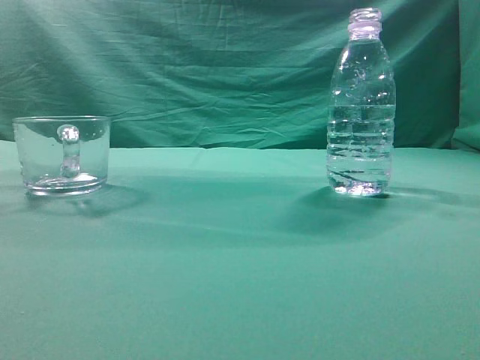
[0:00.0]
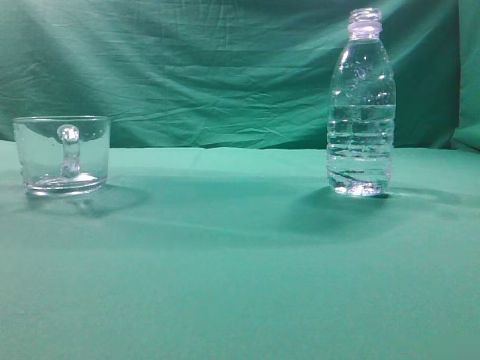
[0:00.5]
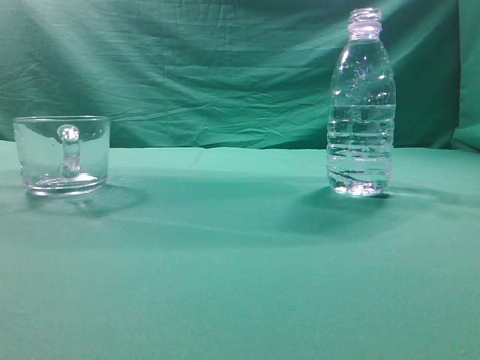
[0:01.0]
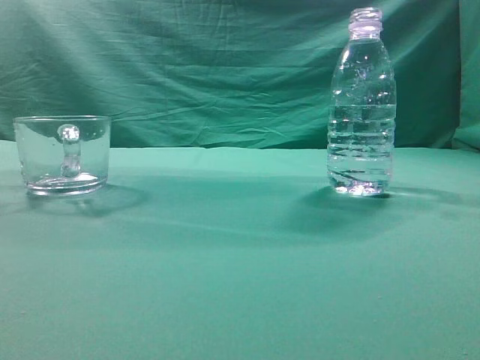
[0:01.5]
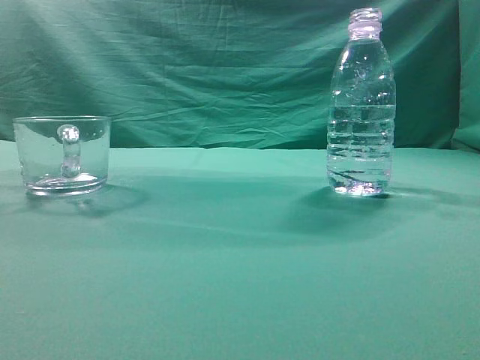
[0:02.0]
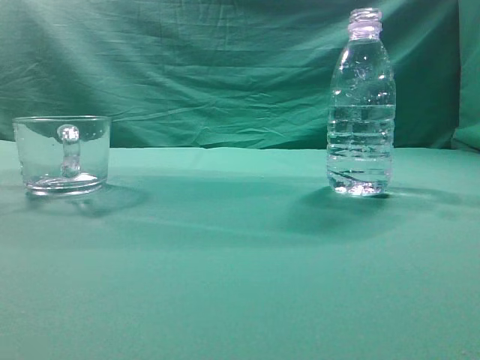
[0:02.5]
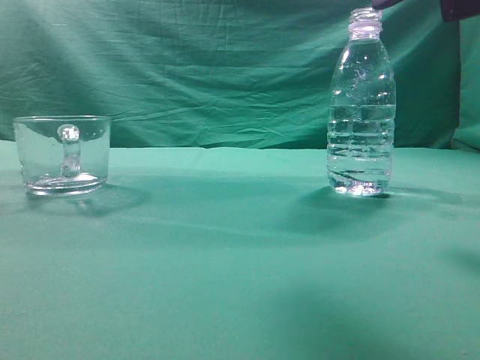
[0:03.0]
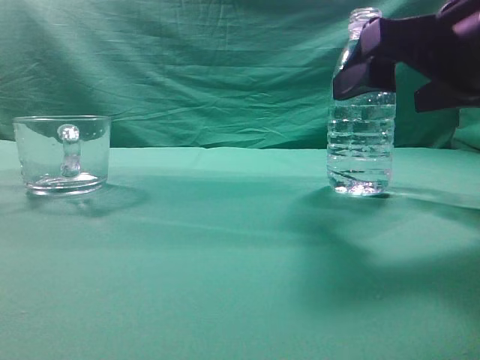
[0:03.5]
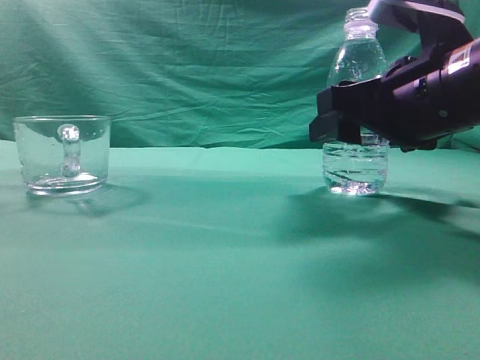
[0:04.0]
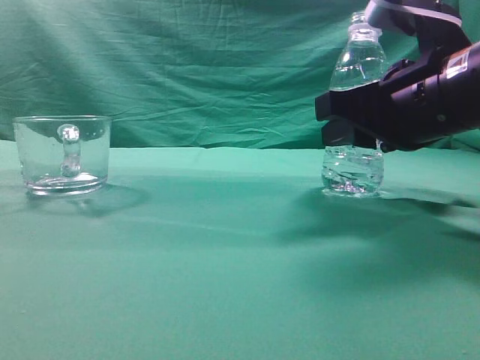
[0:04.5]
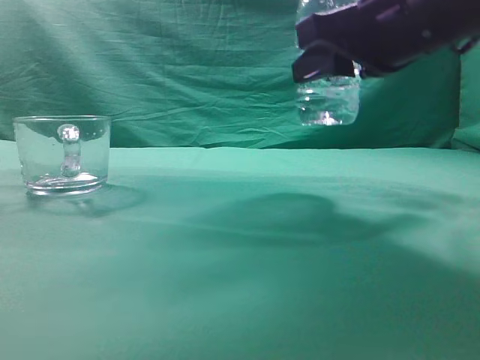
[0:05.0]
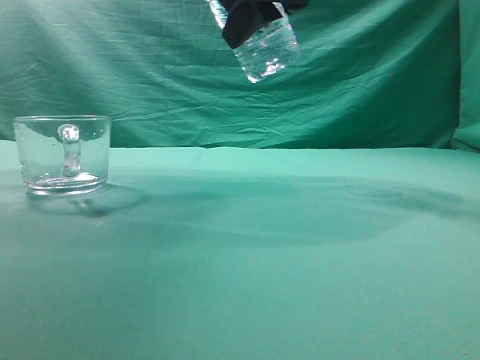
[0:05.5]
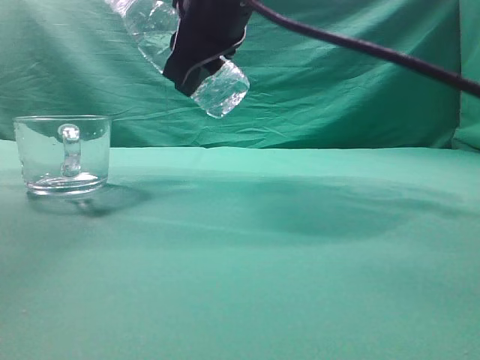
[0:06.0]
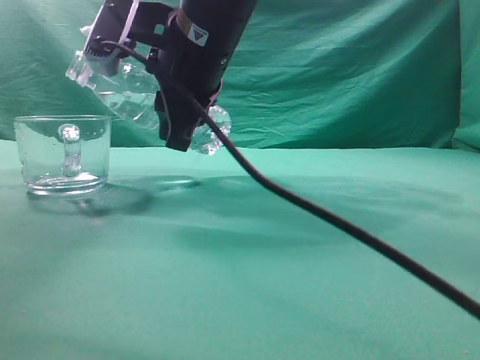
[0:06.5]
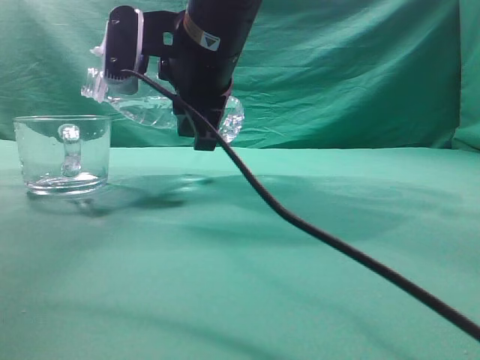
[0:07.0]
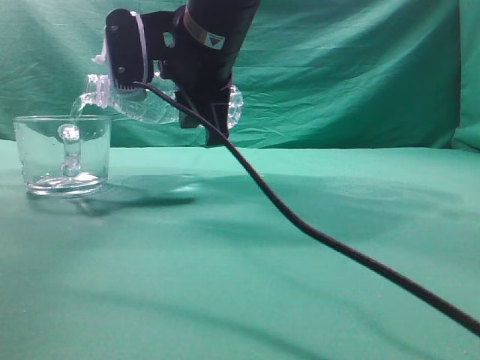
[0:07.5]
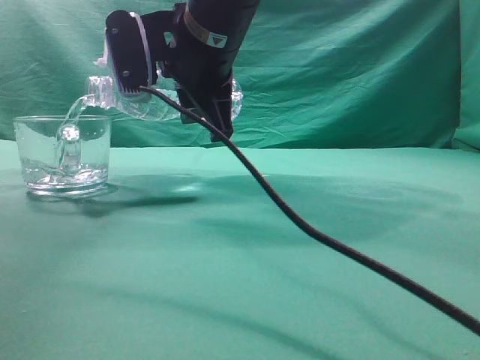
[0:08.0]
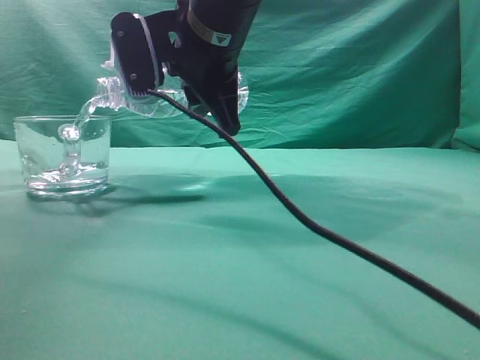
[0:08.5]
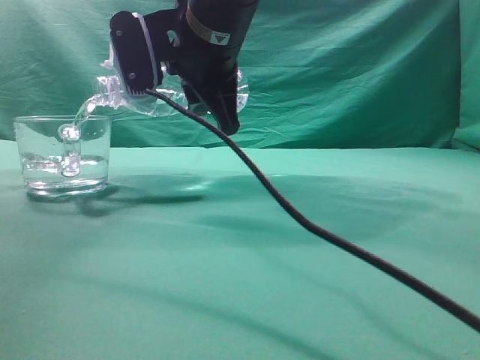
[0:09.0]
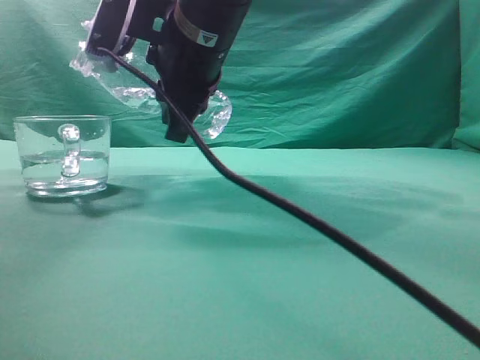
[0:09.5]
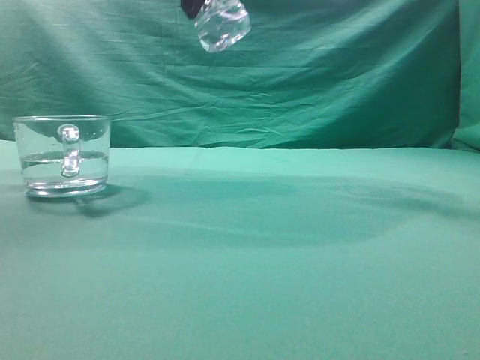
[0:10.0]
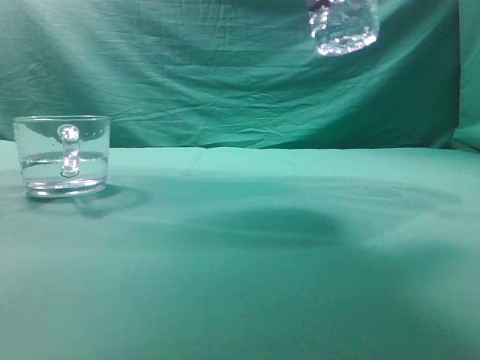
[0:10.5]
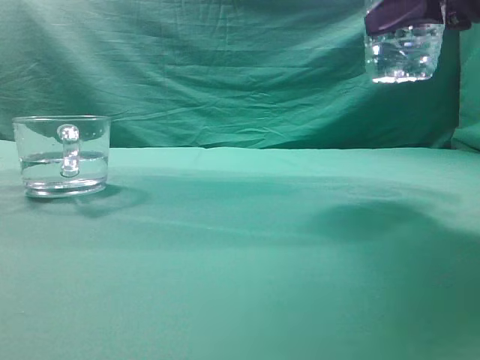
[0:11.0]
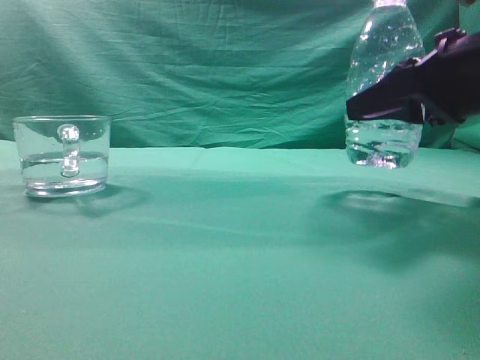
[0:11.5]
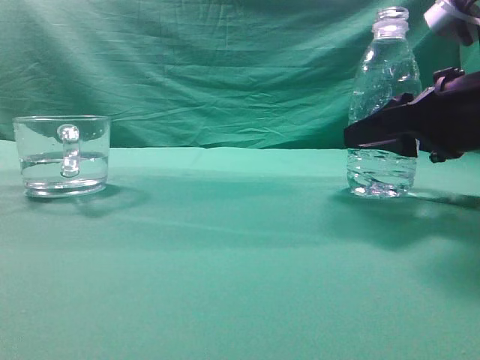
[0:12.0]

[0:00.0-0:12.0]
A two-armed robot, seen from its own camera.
Task of the whole recording: pick up the water bottle and pour the water in it into the glass.
Step, 0:00.0 to 0:04.5: Grasp the mineral water bottle.
Step, 0:05.0 to 0:09.5: Pour water into the teacup.
0:02.0 to 0:04.0: The right gripper travels forward, downward and to the left by roughly 30 cm, and opens its fingers.
0:04.0 to 0:06.0: The right gripper shifts roughly 20 cm to the left and upward, and closes up.
0:08.0 to 0:10.0: The right gripper heads upward, covering about 10 cm.
0:10.0 to 0:12.0: The right gripper travels to the right and downward by approximately 30 cm.

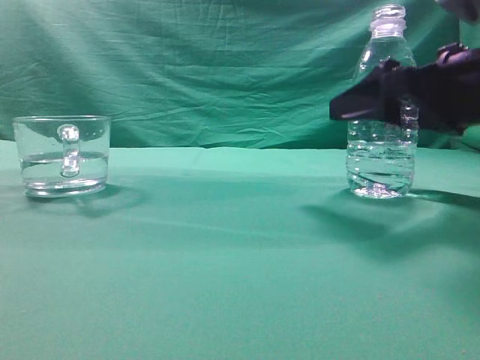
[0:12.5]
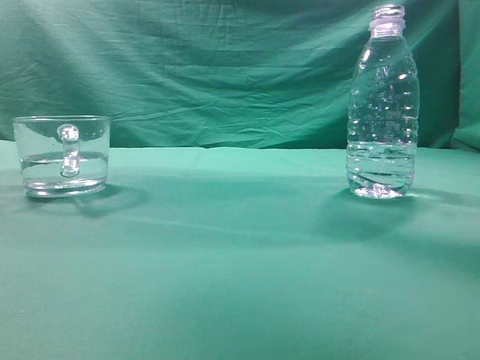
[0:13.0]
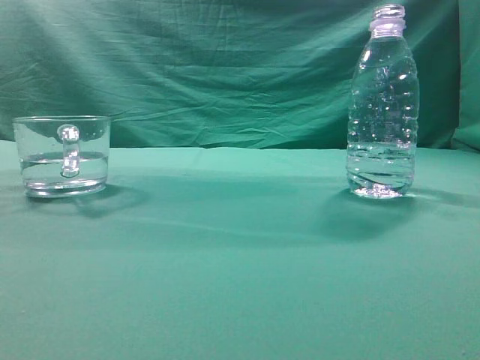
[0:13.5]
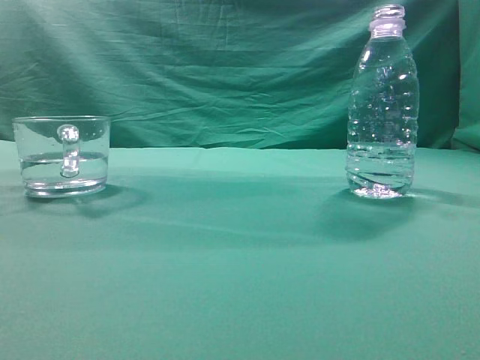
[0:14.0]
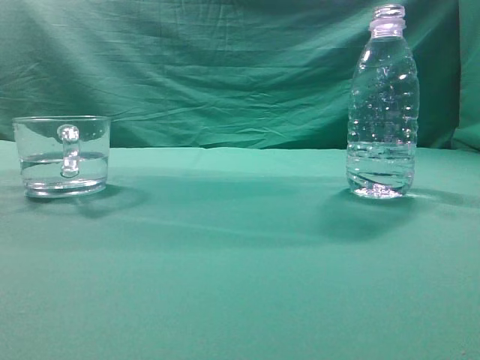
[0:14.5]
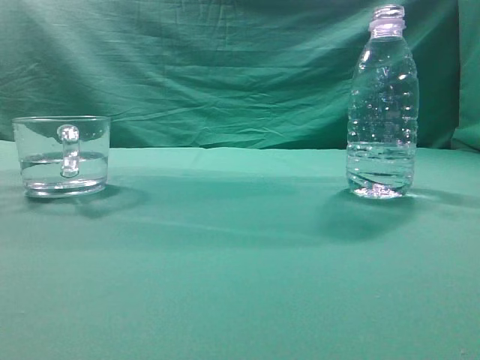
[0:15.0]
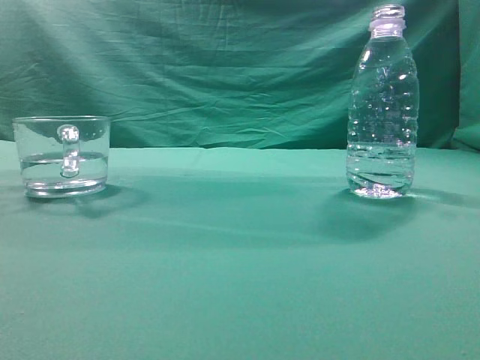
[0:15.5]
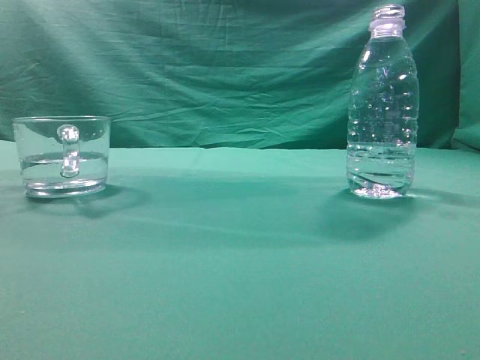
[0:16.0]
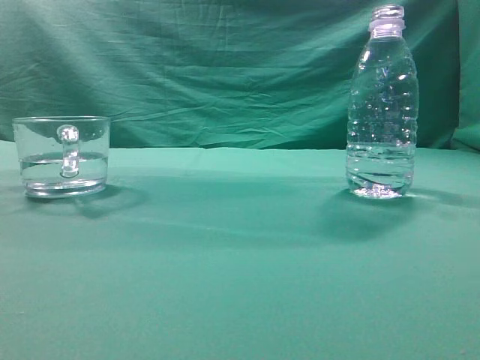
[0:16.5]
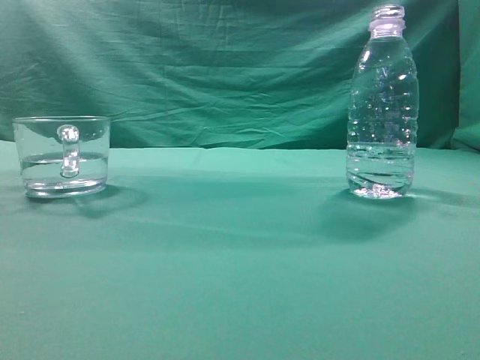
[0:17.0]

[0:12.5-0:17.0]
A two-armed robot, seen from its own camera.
Task of the whole recording: pick up the water bottle and pour the water in it into the glass.
0:12.5 to 0:14.5: The right gripper goes approximately 35 cm upward and backward, and closes.
